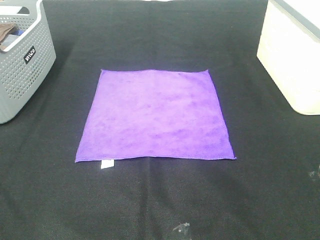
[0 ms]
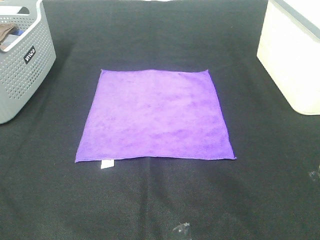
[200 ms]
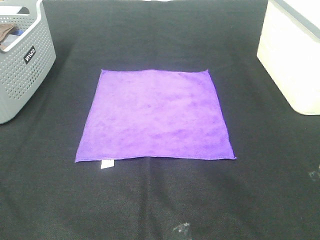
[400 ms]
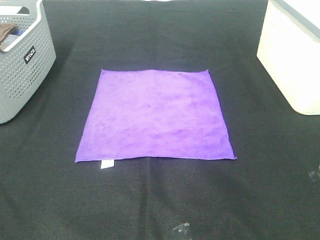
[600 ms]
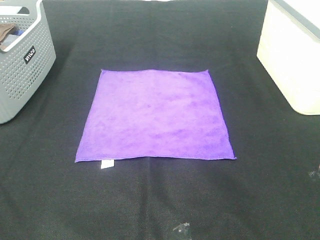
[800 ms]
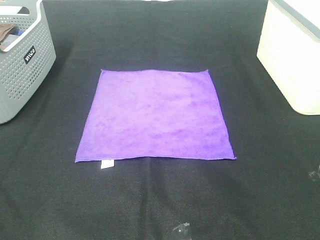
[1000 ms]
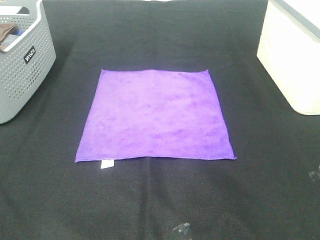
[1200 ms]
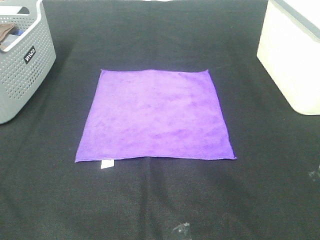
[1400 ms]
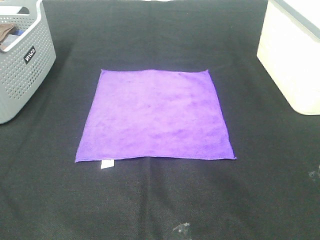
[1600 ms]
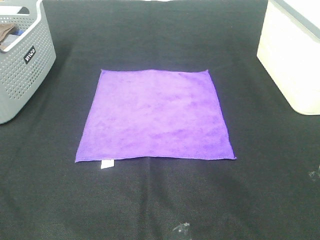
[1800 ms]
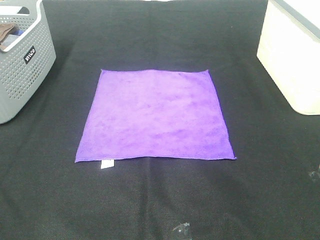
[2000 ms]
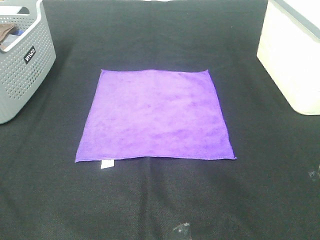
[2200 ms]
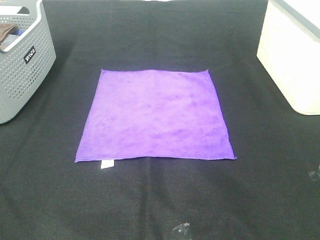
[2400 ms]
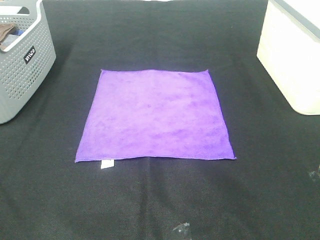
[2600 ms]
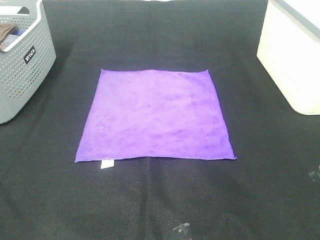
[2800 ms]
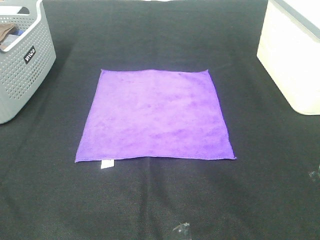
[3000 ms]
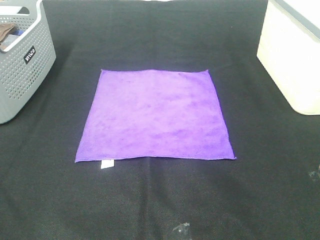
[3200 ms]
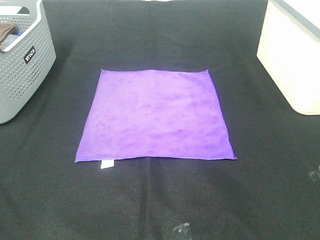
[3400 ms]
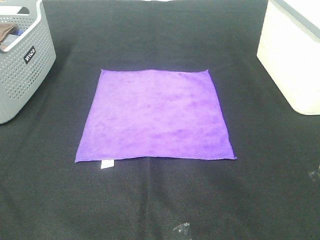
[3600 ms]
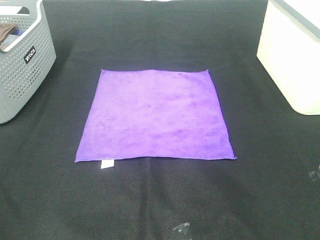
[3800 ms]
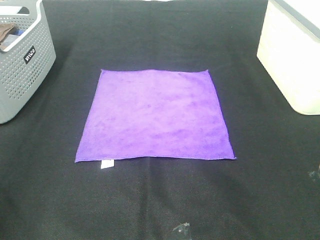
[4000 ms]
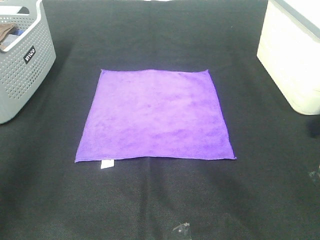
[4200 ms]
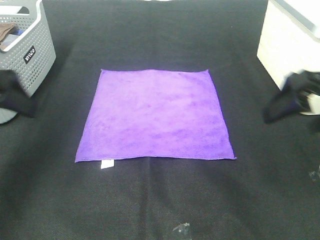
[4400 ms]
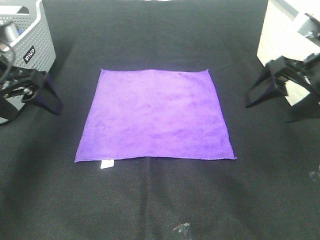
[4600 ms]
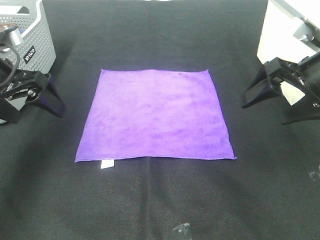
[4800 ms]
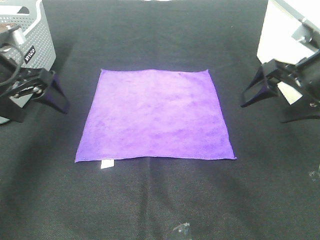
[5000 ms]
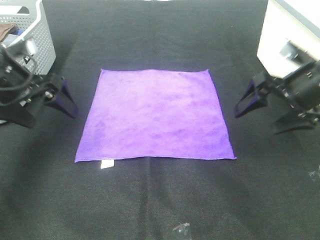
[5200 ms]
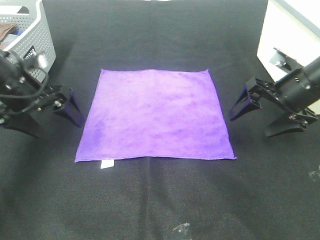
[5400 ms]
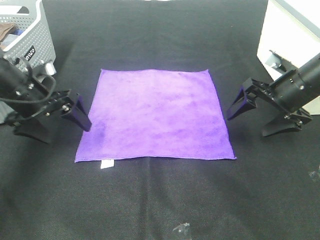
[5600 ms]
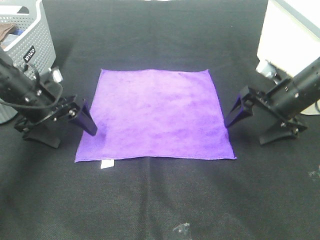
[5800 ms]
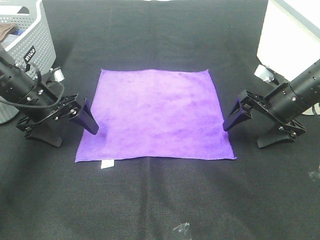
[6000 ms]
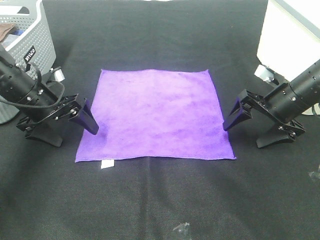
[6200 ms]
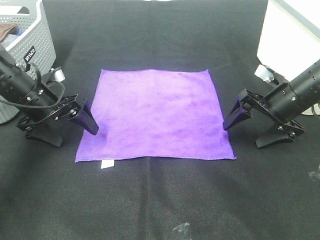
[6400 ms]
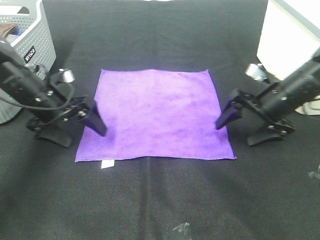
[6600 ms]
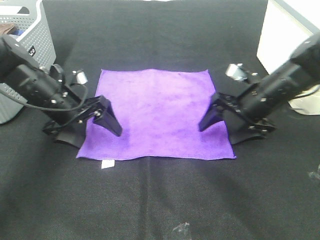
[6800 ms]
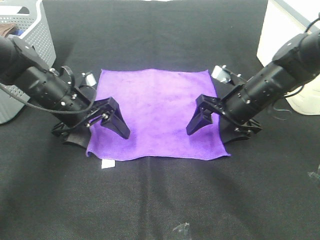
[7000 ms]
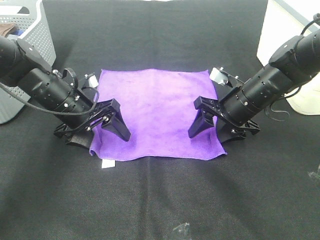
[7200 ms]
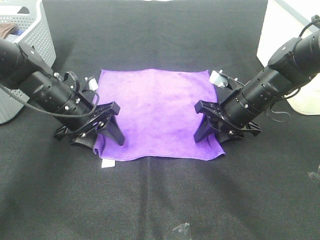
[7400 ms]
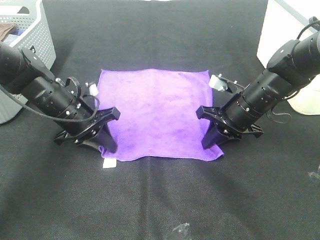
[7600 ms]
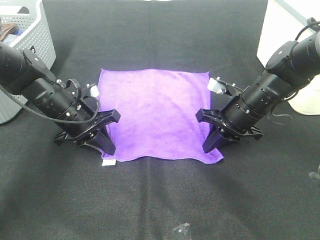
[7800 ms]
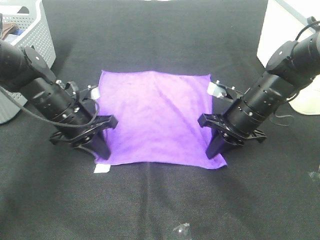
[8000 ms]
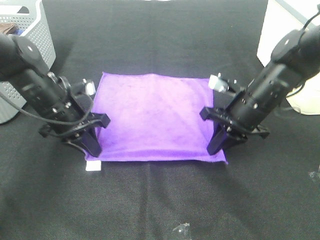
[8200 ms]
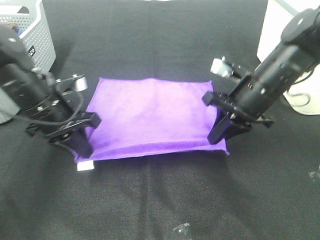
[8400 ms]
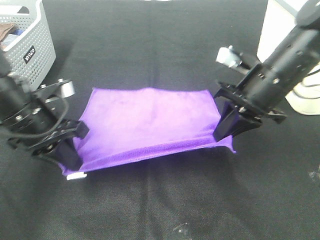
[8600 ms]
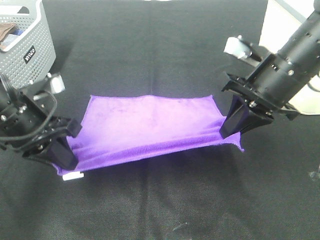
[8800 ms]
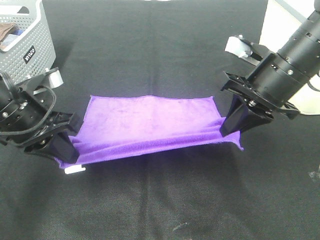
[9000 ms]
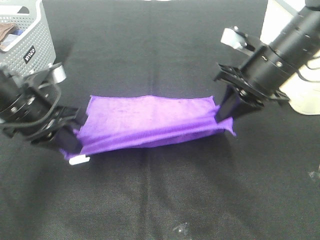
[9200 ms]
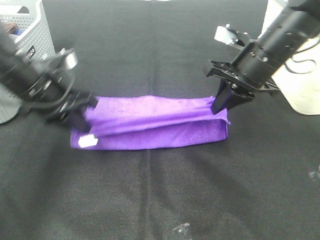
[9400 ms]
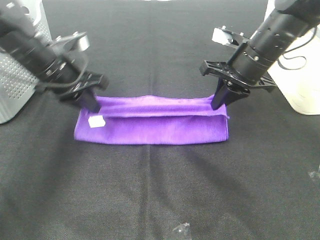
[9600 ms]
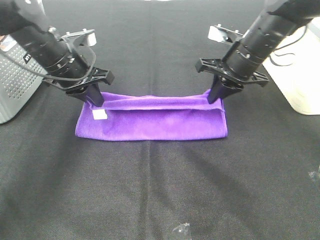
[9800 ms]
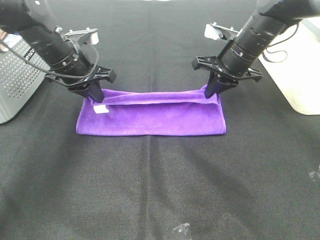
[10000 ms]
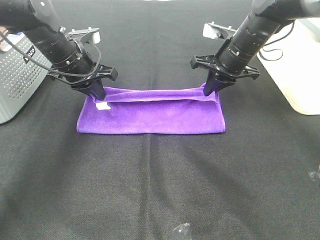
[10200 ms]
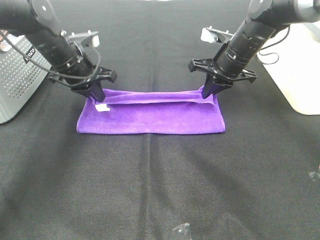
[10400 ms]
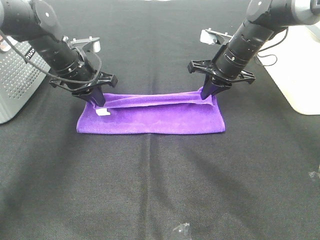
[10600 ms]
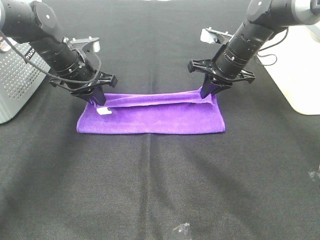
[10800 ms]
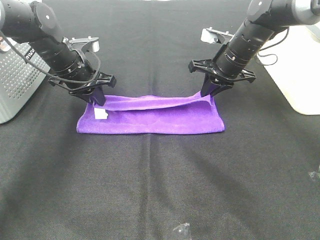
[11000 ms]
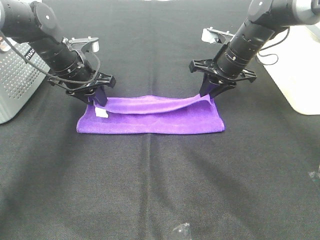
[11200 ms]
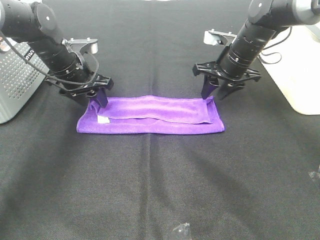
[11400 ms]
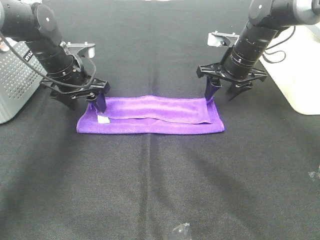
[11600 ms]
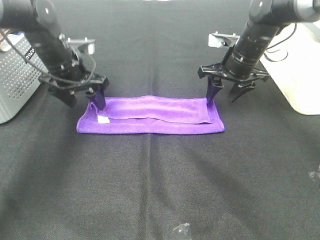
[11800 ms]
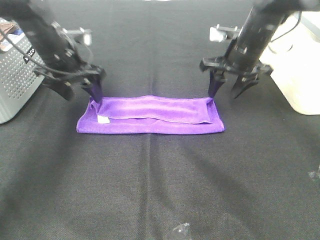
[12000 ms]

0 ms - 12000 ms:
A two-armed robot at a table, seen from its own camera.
Task of the whole recording: Fold towels.
Step, 0 ms - 7600 ms: Left hand: grab the bottom left corner of purple towel.
Step, 0 ms - 7600 ms: Right hand: grab the bottom right corner of purple towel.
Step, 7800 ms - 10600 ms: Left hand: fold the purple towel up.
Step, 7800 ms - 10600 ms: Right hand: fold the purple towel up.
1600 ms - 3000 ms: The two grippers keep their place.
3000 ms - 4400 ms: The two grippers go approximately 25 cm forward.
4400 ms - 6000 ms: Both grippers move downward and forward, approximately 15 cm.
6000 ms - 7600 ms: The right gripper goes about 10 cm to the left, and closes. Meanwhile the left gripper goes about 5 cm to the right, and closes up.
7600 ms - 9000 ms: Both grippers travel together upward and backward, some 15 cm.
9000 ms - 10400 ms: The left gripper goes approximately 15 cm forward, while the right gripper shifts about 15 cm forward and downward.
10400 ms - 12000 ms: The left gripper opens its fingers. The right gripper opens.

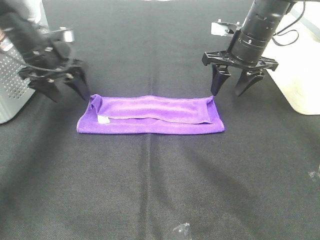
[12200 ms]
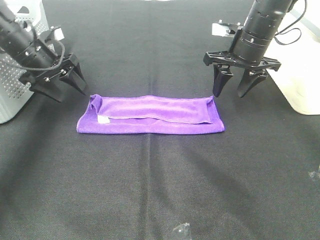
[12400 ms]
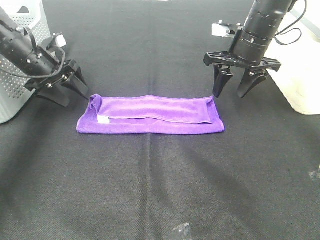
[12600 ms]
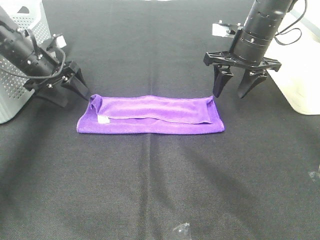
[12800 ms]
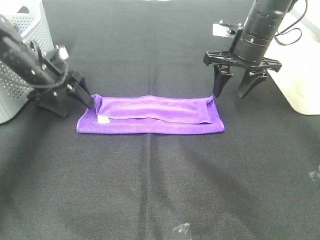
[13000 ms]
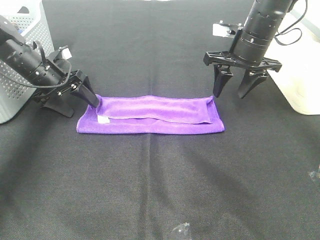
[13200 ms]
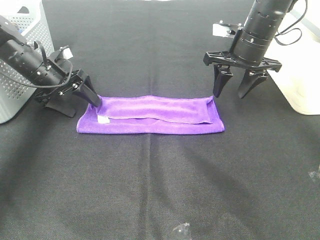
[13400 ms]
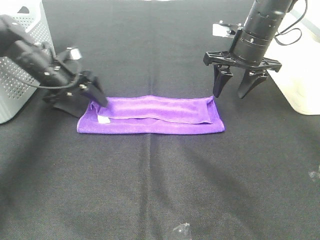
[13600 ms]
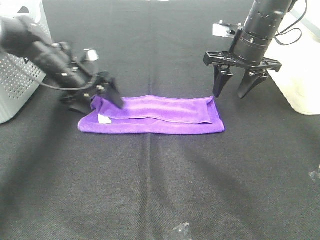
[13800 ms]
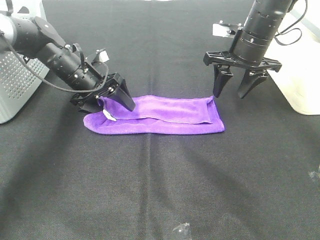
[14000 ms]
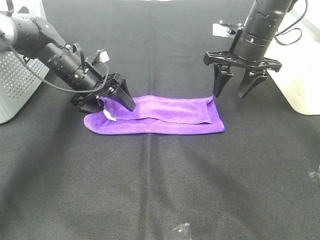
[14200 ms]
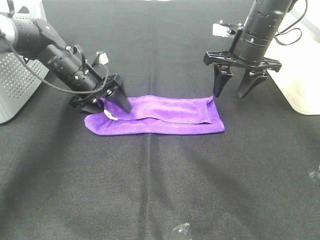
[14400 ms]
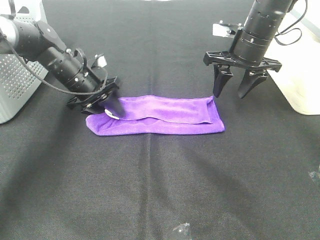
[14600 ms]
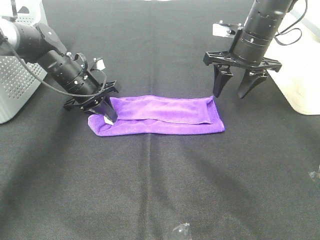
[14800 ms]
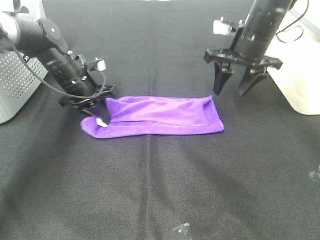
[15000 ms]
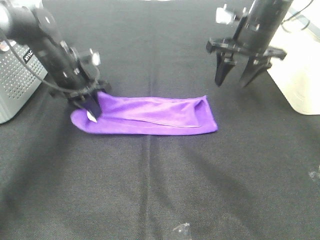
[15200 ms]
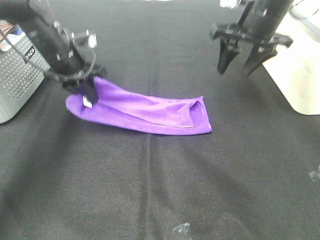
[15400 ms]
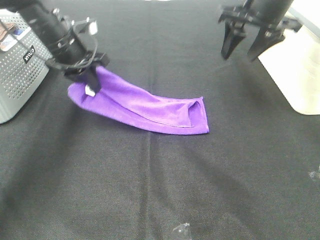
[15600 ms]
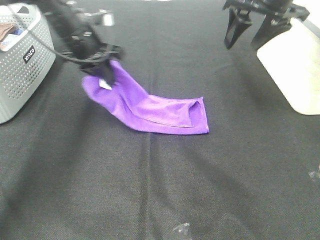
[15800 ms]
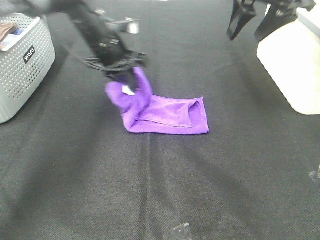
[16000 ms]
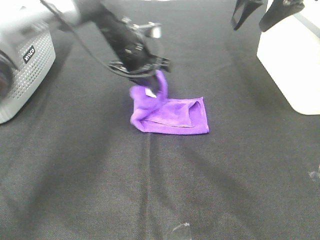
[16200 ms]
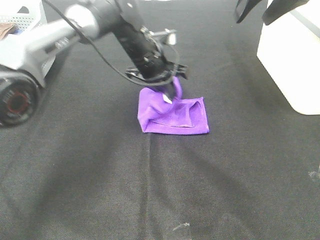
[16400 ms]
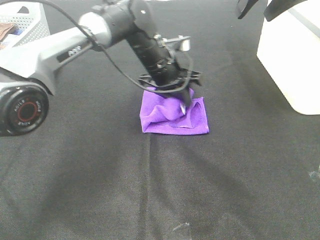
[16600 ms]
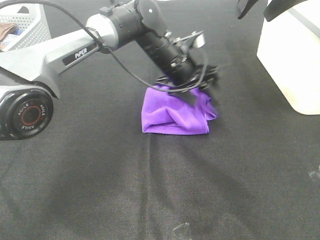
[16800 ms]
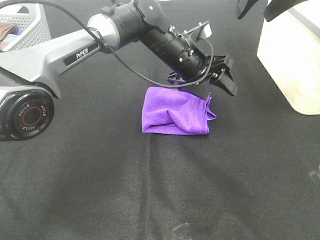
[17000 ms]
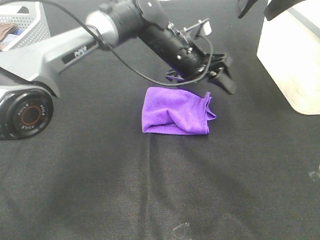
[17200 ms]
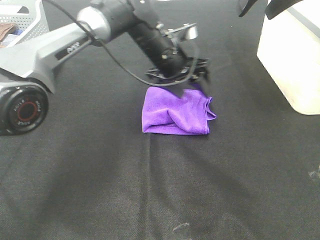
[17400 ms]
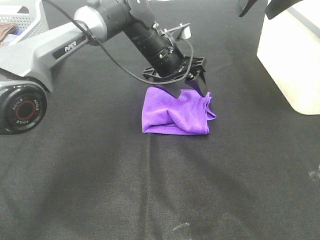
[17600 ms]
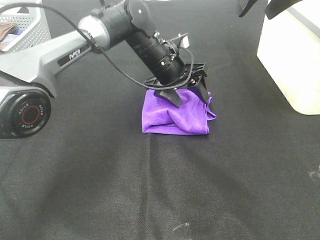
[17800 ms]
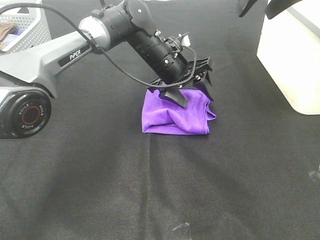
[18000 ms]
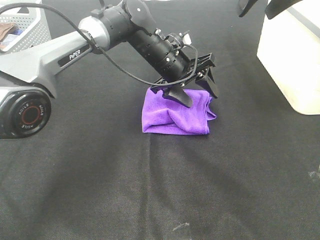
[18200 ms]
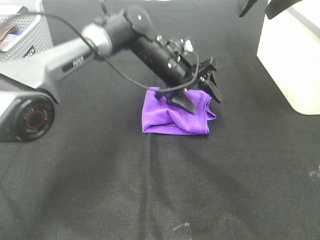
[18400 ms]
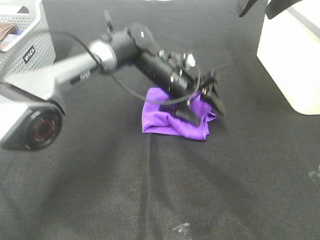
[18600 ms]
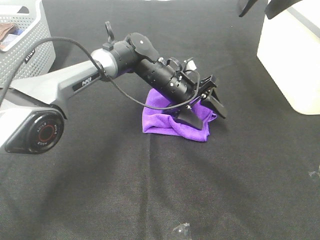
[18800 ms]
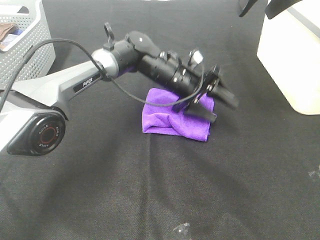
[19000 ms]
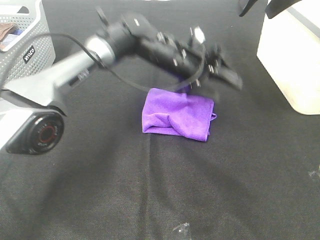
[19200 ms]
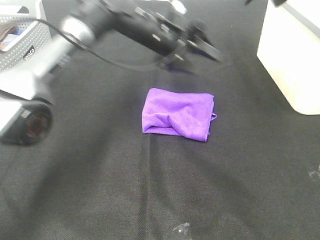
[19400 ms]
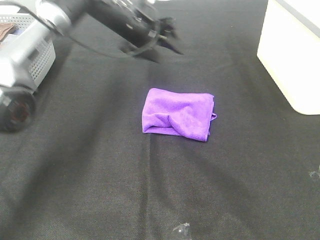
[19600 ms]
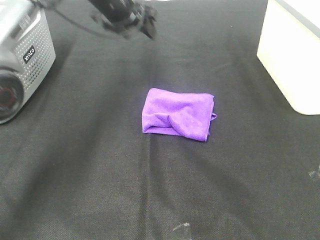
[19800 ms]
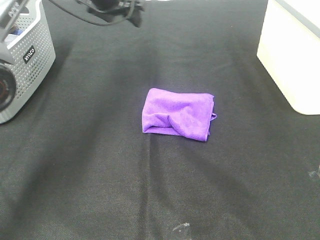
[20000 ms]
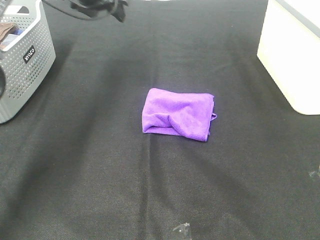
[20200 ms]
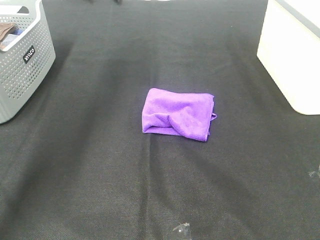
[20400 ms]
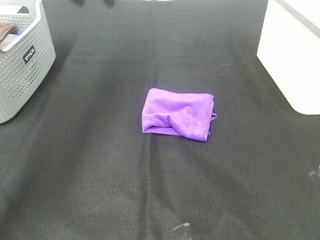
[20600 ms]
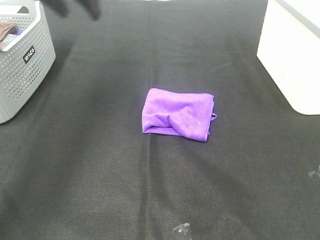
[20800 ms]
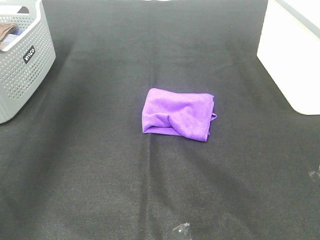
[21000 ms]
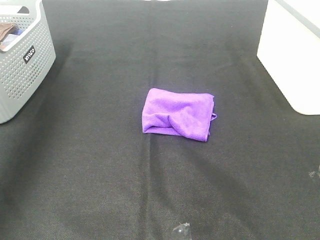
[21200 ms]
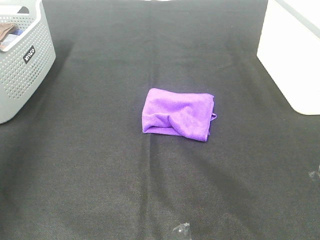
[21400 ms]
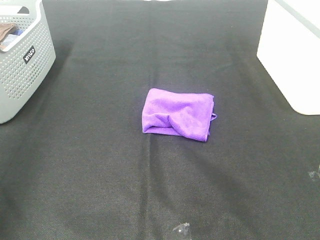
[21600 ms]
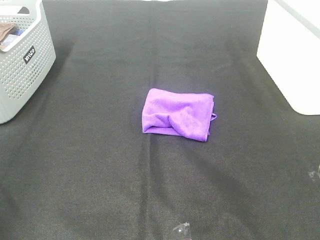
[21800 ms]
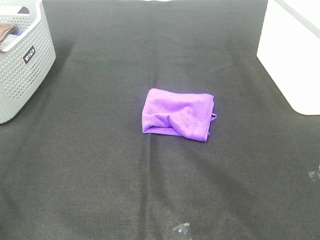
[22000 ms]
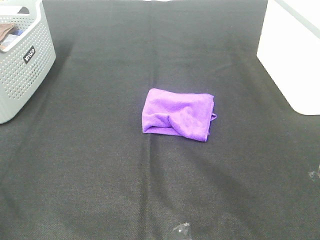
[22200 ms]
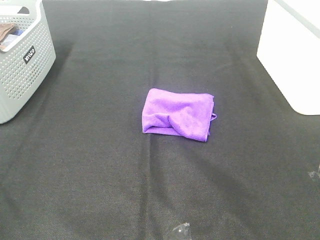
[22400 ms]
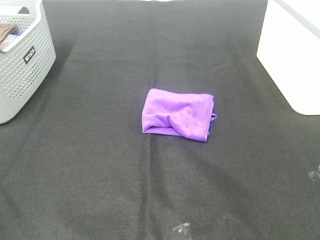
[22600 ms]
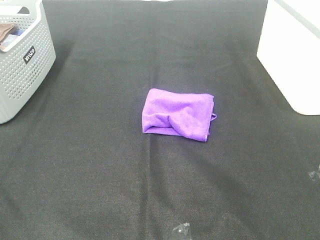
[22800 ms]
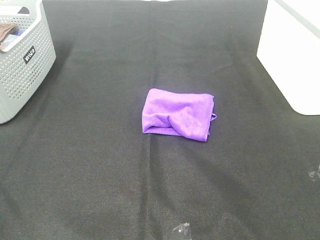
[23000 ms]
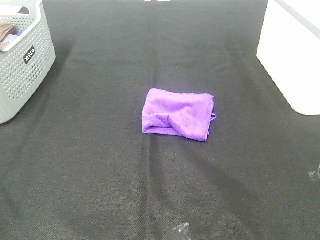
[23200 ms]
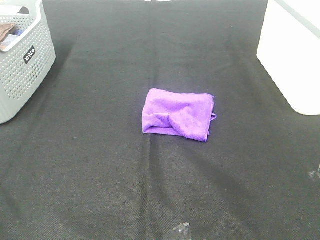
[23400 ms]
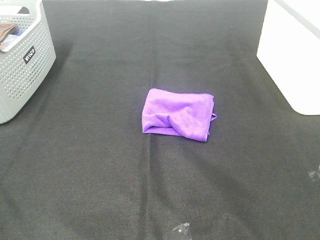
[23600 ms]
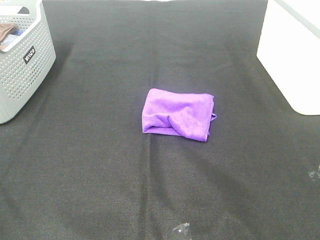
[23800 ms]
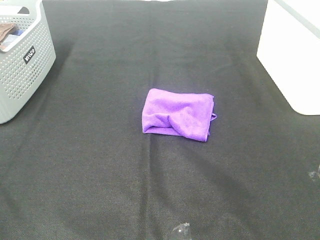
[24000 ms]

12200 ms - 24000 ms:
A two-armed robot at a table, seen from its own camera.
Task of the whole recording: Fold towels.
Step, 12200 ms - 16400 ms: Left hand: fold the purple towel from left to right.
12200 ms - 13600 ms: The left gripper shifts about 5 cm downward.
13600 ms - 15200 ms: The left gripper closes.
15200 ms - 16600 ms: The left gripper heads to the right, covering approximately 20 cm, and opens; the right gripper goes approximately 15 cm upward.
16600 ms - 18200 ms: The grippers stay close to where they were, moving slightly.
18200 ms - 19600 ms: The left gripper moves to the left, upward and forward, approximately 15 cm, while the right gripper heads upward, covering about 5 cm.
19600 ms - 21000 ms: The right gripper travels backward by approximately 10 cm, while the left gripper moves to the left, upward and backward, approximately 35 cm.
21000 ms - 22600 ms: The left gripper heads backward, covering approximately 35 cm.
